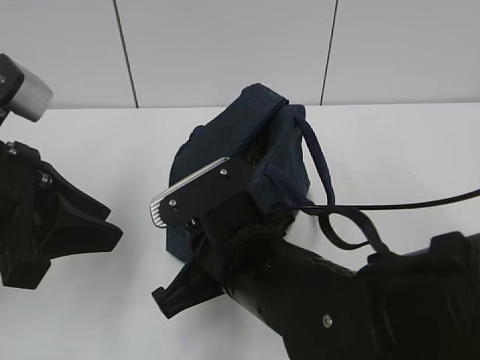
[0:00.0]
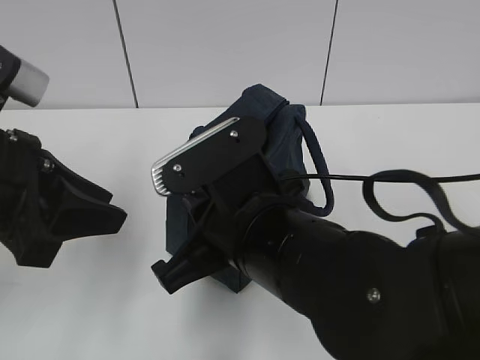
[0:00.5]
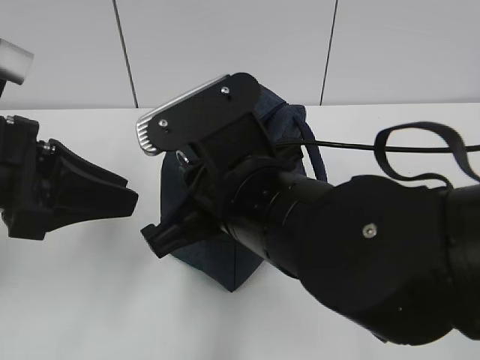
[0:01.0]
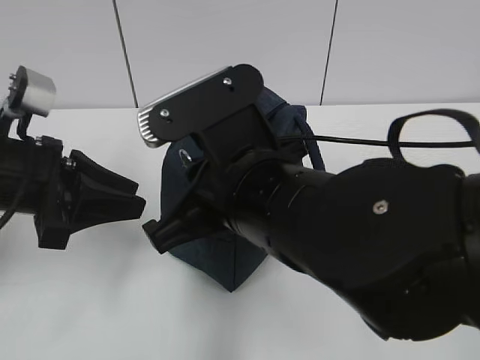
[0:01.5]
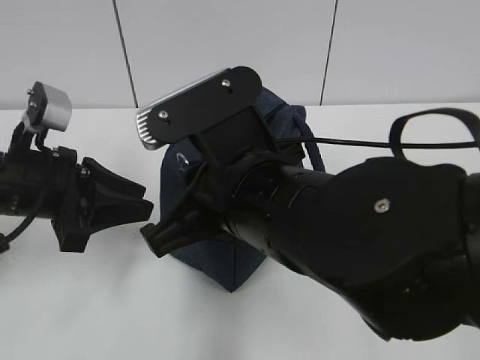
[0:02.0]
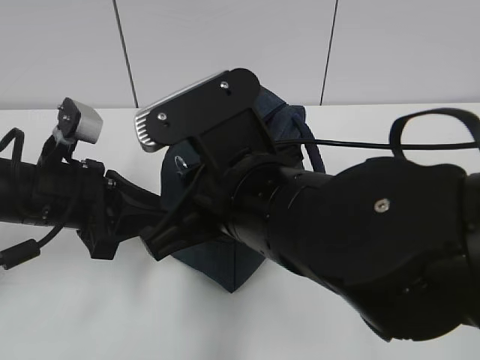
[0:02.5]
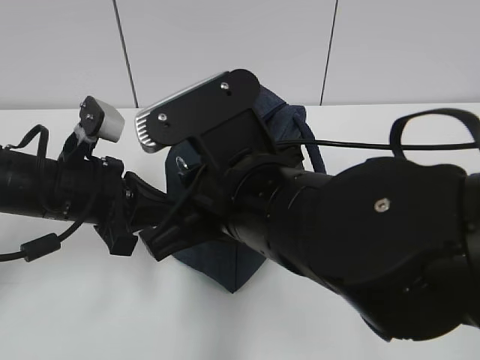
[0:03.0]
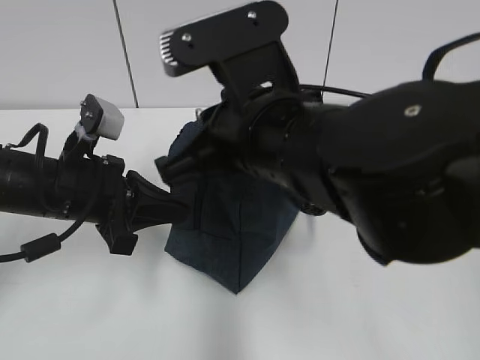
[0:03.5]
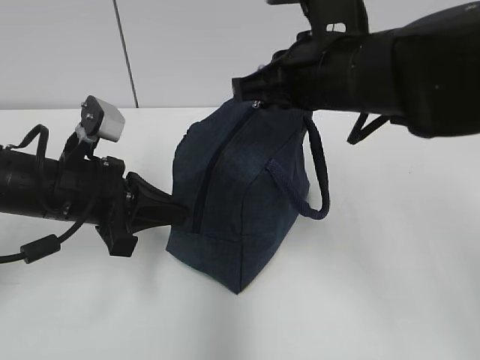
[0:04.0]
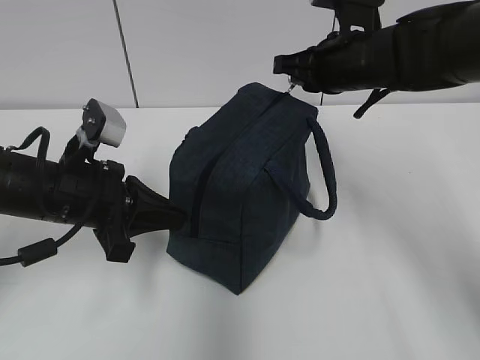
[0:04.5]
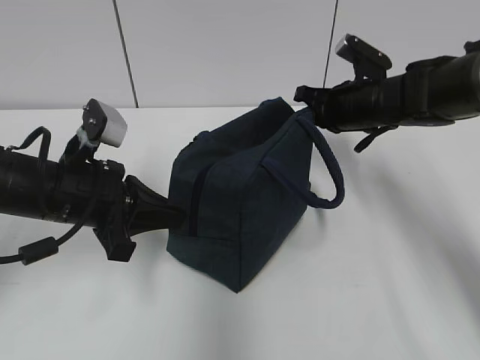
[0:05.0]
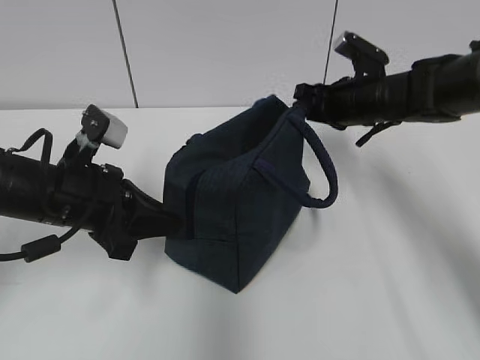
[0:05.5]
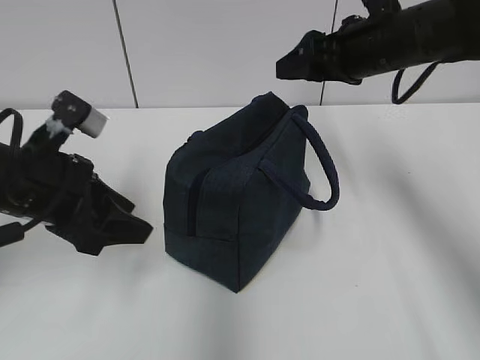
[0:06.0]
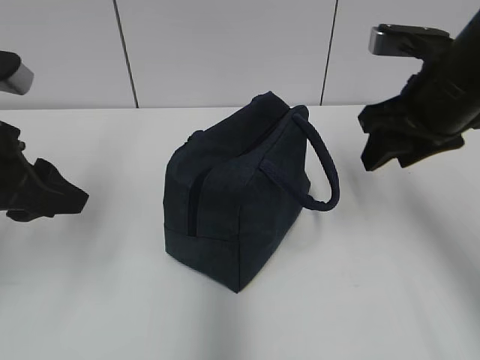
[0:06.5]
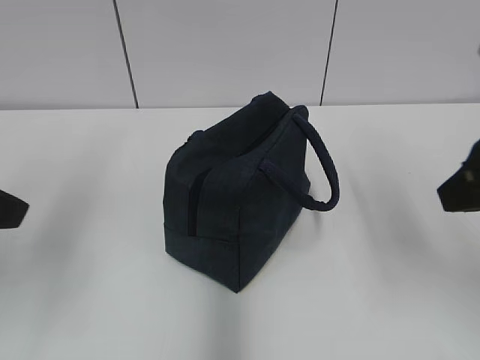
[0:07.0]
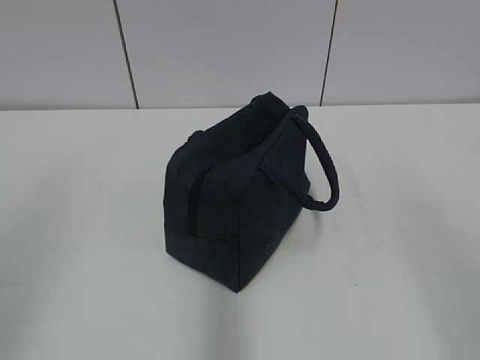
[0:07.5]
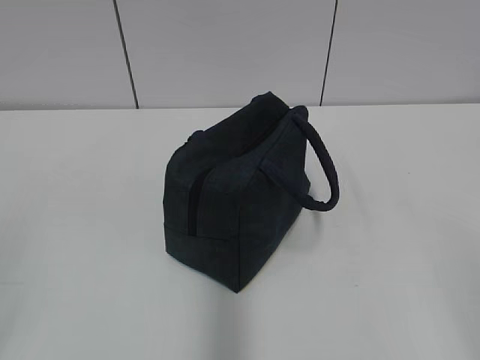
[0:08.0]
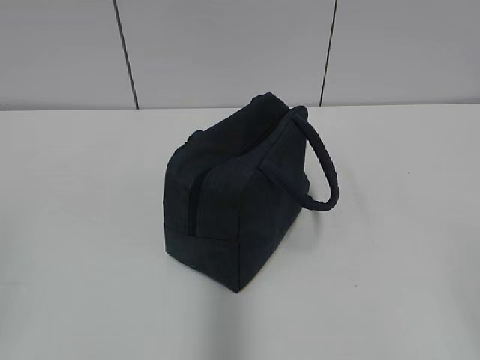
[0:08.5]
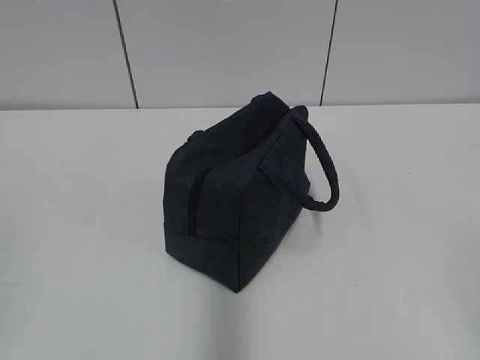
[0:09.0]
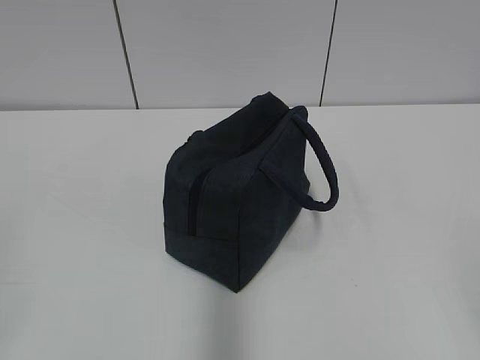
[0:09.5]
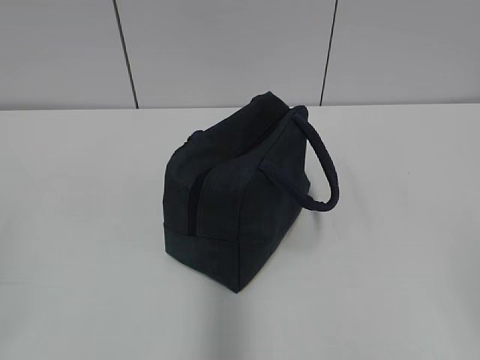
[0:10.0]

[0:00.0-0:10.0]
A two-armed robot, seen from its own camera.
Step, 0:00.0 to 0:03.0: Grab the lunch bag with your left hand.
Step, 0:03.5 to 0:05.0: Pull the zipper with your right hand.
0:00.0 to 0:02.0: The right gripper shifts some 5 cm upward, while the left gripper heads forward and downward, covering about 10 cm.
0:02.0 to 0:04.0: The left gripper closes; the right gripper moves forward and to the right, some 15 cm.
0:04.0 to 0:06.0: The left gripper opens. The right gripper heads forward and to the right, covering roughly 10 cm, and opens its fingers.
0:06.0 to 0:08.0: The right gripper goes roughly 40 cm backward, while the left gripper goes about 30 cm backward and to the left, and closes.
